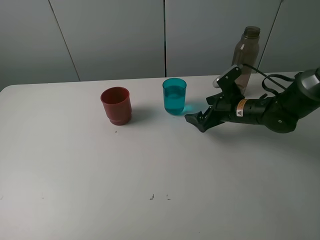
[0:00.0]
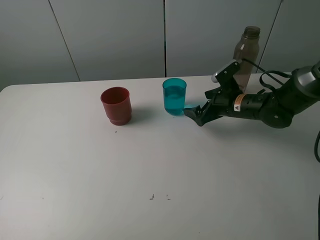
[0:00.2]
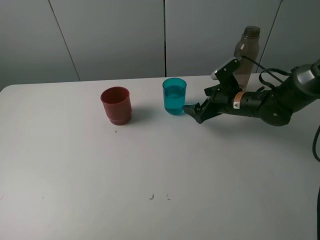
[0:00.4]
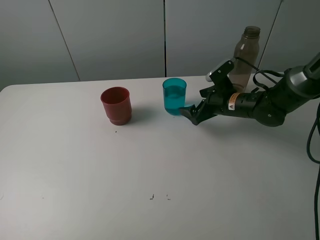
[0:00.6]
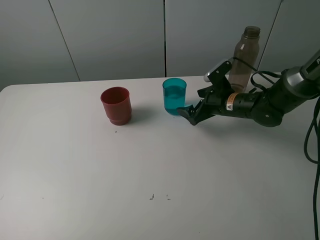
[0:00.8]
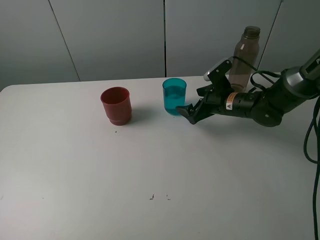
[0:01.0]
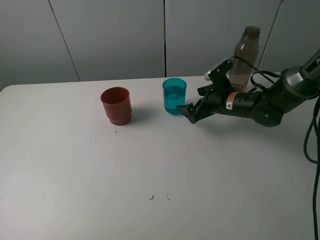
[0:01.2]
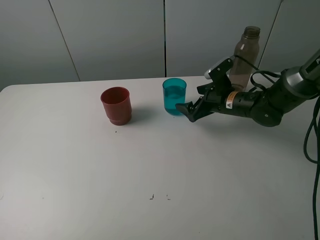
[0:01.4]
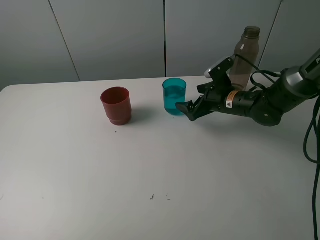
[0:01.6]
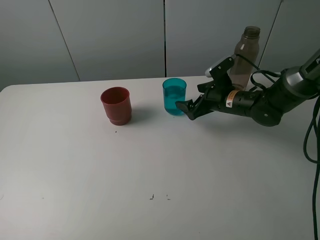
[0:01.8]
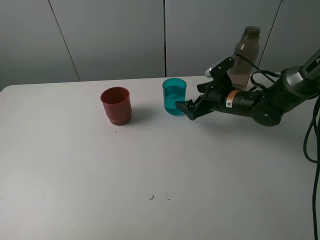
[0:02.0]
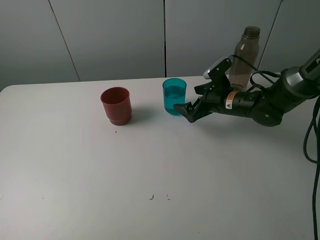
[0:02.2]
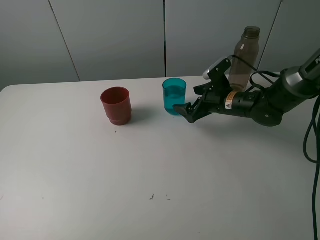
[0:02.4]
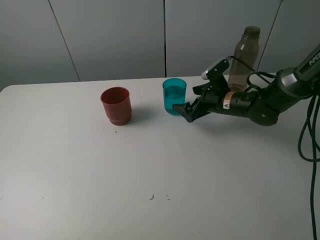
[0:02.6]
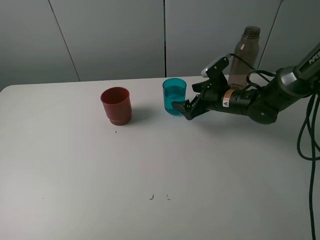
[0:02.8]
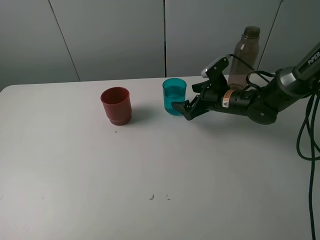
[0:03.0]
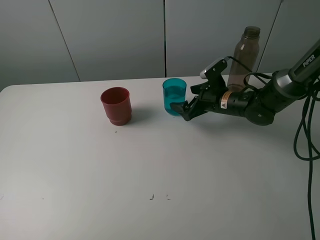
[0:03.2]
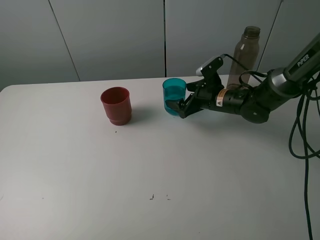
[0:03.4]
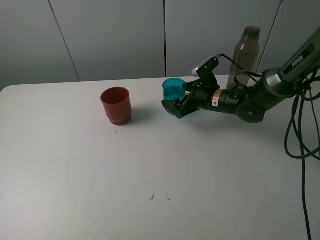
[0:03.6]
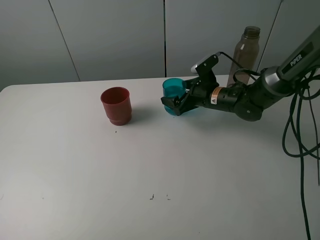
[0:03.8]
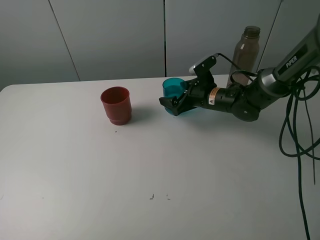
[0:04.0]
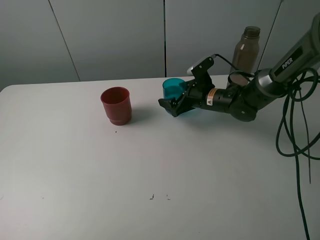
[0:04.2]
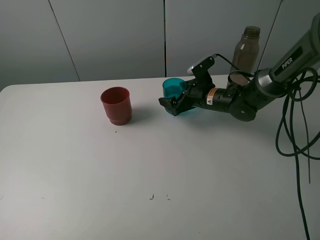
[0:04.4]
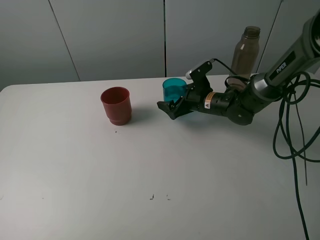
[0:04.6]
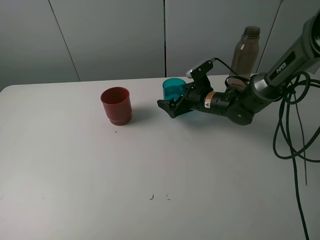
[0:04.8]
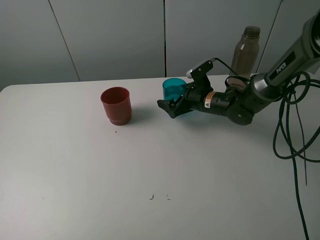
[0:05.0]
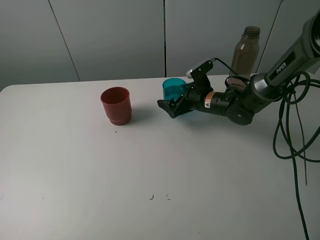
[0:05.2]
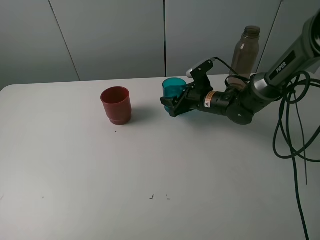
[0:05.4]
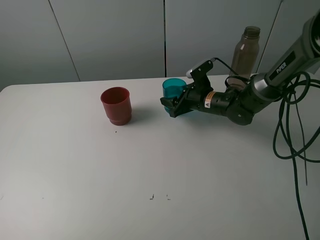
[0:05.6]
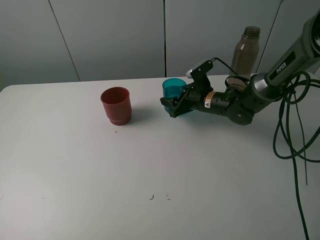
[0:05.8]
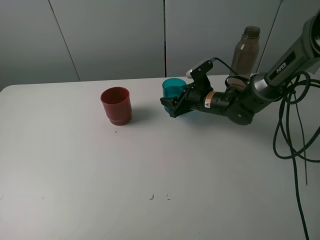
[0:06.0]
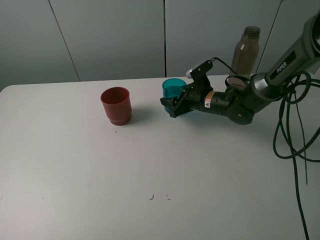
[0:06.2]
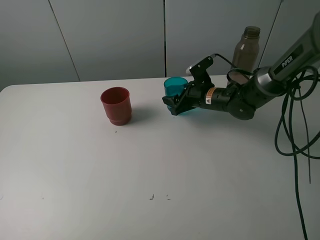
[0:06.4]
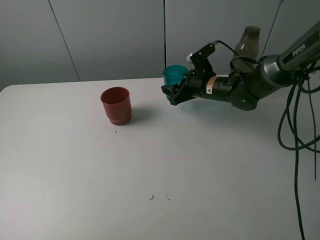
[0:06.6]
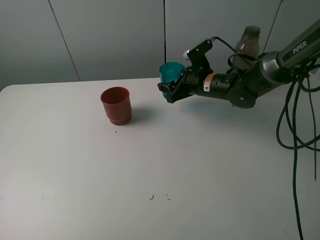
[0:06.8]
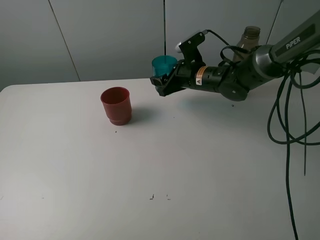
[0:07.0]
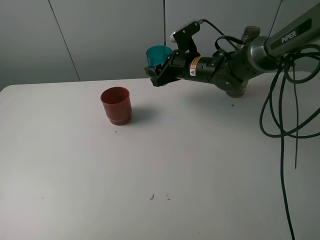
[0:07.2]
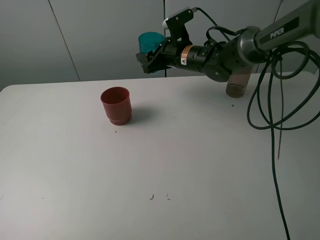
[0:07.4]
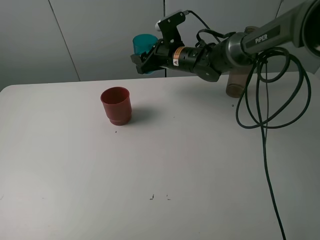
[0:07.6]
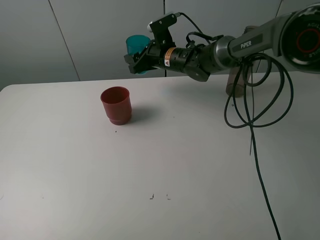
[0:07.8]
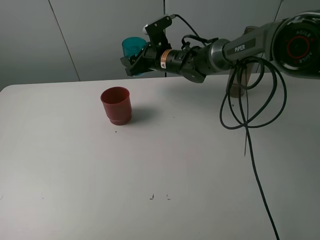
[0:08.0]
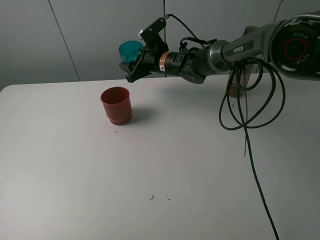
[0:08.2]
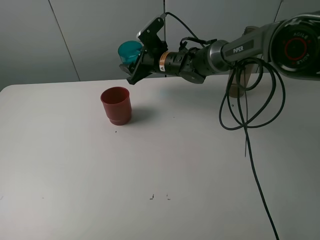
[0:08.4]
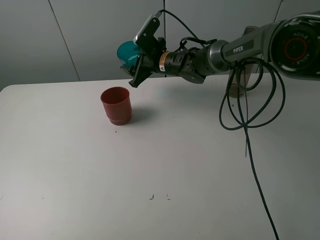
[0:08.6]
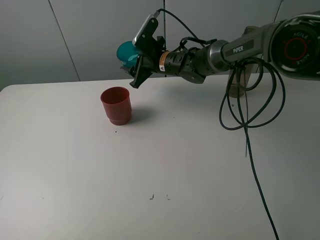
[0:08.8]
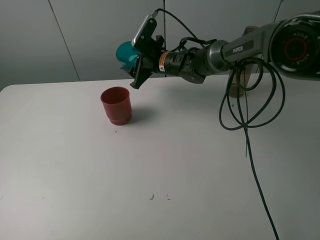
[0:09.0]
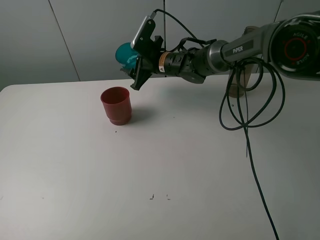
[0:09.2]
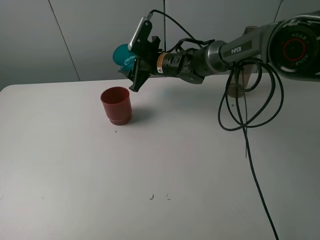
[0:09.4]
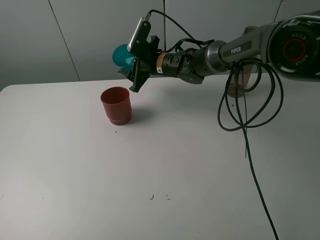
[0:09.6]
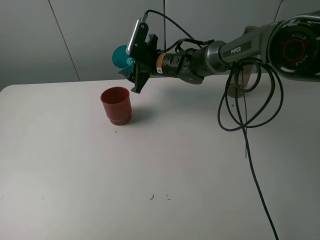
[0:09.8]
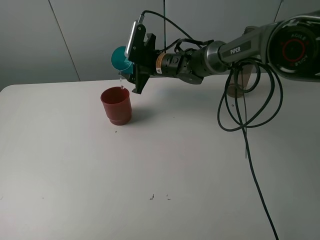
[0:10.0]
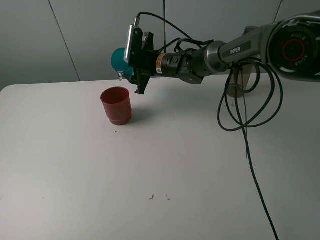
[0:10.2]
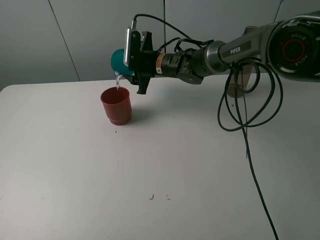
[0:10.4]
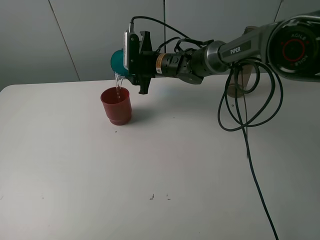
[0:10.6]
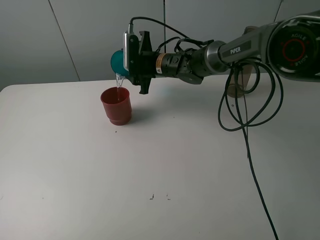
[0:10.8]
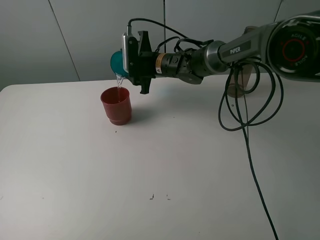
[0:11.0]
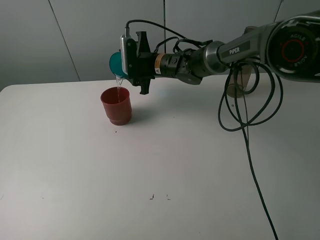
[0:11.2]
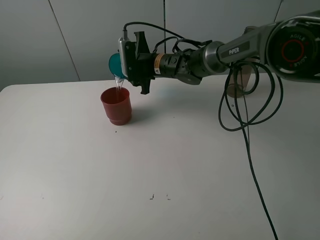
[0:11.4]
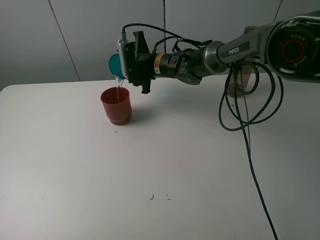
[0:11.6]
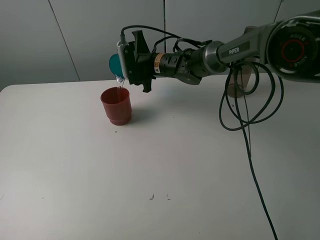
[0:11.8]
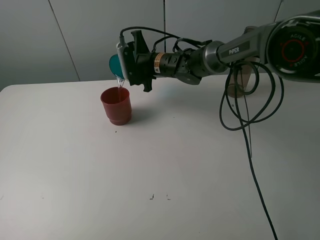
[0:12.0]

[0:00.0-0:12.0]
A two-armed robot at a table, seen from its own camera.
Task of the whole recording: pick up the bottle and pour water into the cup, then pick up the cup containing water and pour it into another cup.
Step, 0:00.0 to 0:05.4: Grasp the blue cup with the right gripper.
0:00.0 to 0:01.6: There are only small adjustments of the grippers.
0:01.6 to 0:03.0: The two grippers keep their place.
0:03.0 to 0:04.4: The grippers stay close to where they were, moving slightly.
0:04.4 to 0:06.0: The right gripper closes up.
0:06.0 to 0:07.6: The right gripper moves upward, to the left and forward, some 15 cm.

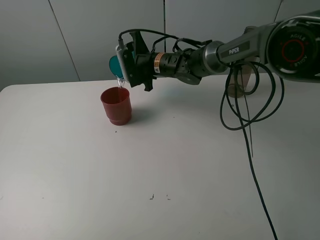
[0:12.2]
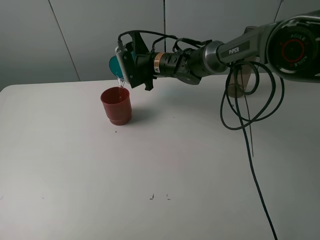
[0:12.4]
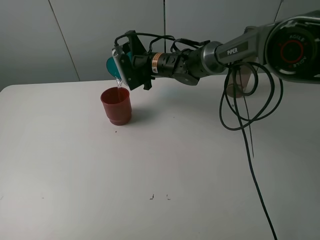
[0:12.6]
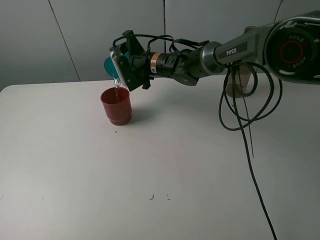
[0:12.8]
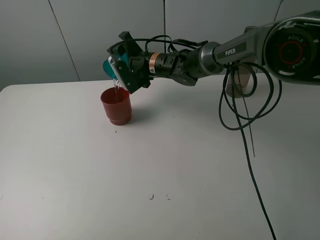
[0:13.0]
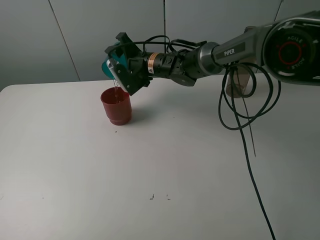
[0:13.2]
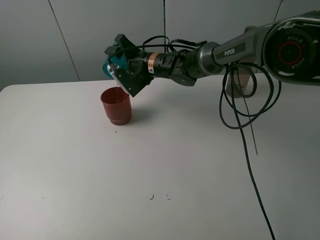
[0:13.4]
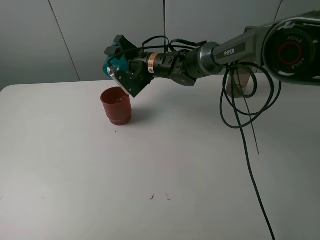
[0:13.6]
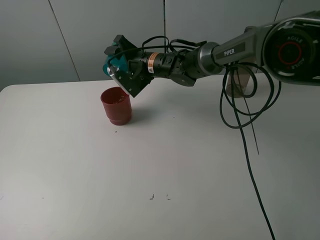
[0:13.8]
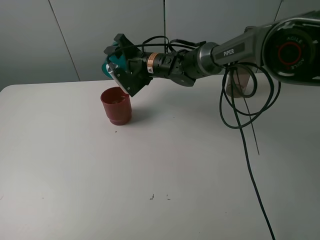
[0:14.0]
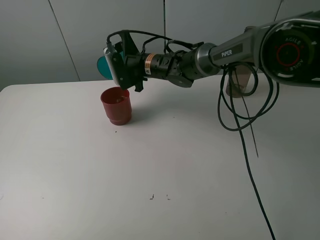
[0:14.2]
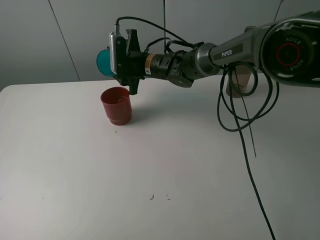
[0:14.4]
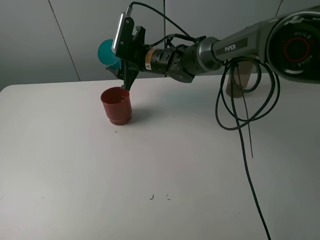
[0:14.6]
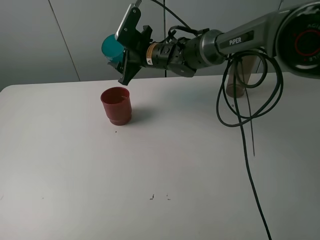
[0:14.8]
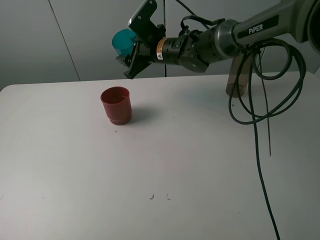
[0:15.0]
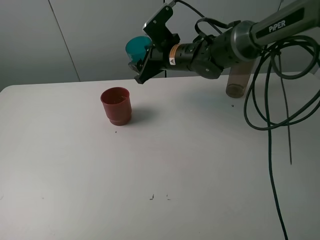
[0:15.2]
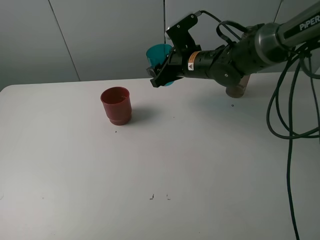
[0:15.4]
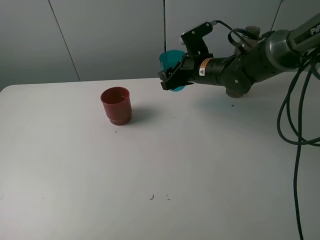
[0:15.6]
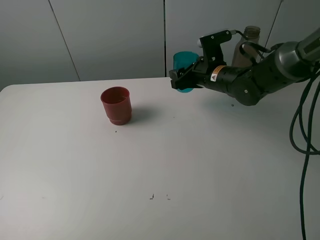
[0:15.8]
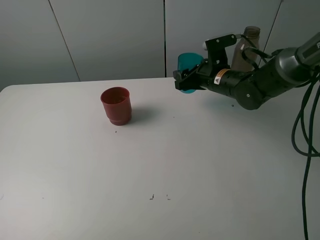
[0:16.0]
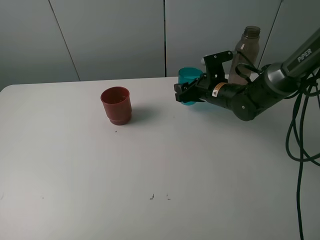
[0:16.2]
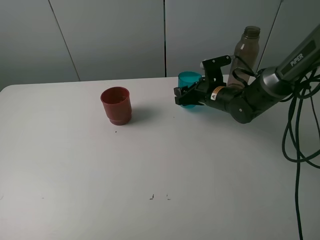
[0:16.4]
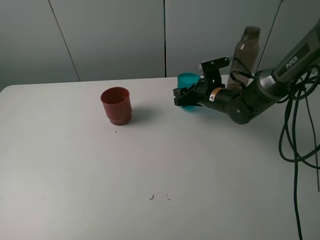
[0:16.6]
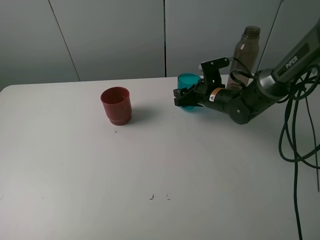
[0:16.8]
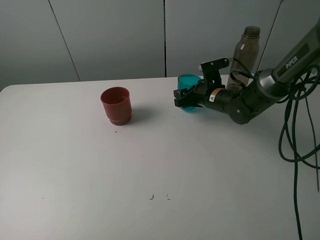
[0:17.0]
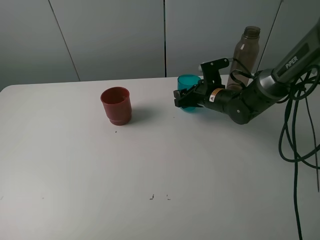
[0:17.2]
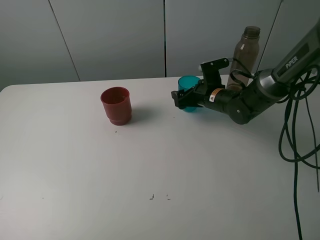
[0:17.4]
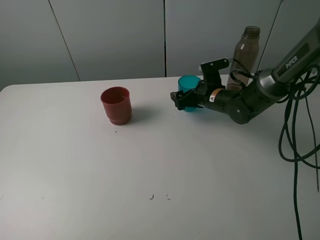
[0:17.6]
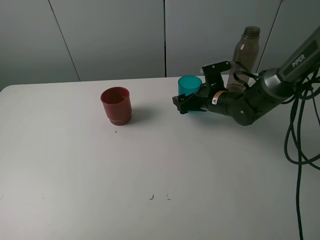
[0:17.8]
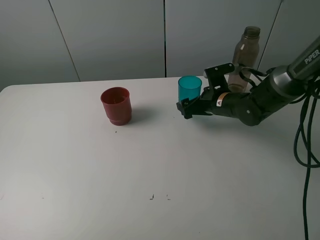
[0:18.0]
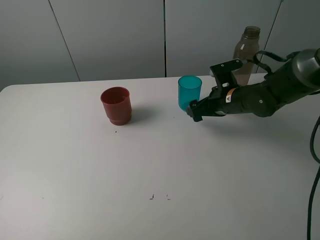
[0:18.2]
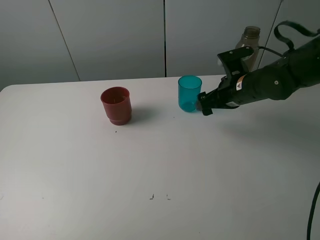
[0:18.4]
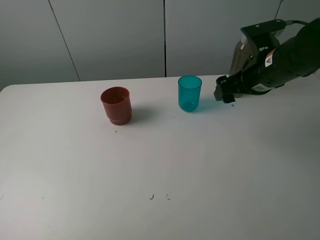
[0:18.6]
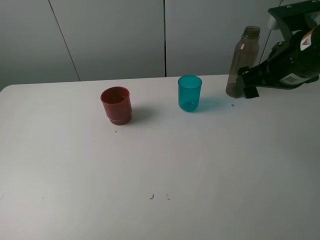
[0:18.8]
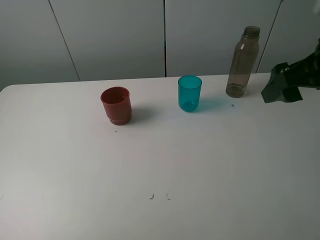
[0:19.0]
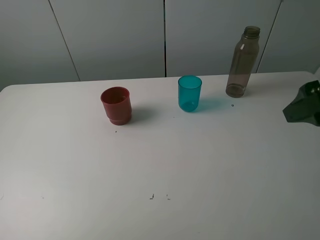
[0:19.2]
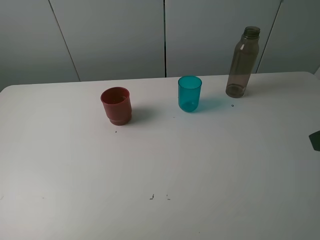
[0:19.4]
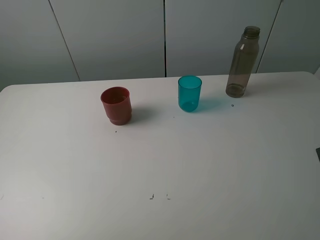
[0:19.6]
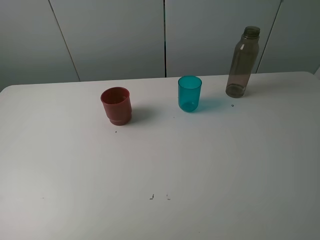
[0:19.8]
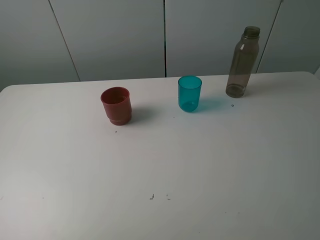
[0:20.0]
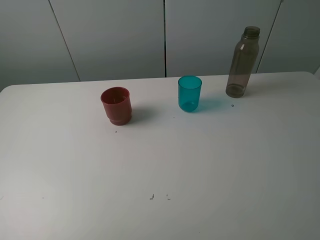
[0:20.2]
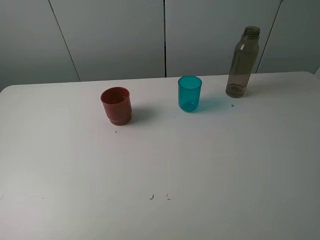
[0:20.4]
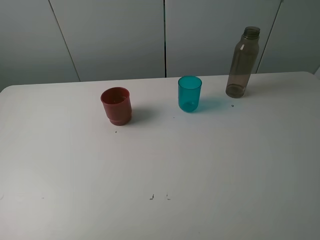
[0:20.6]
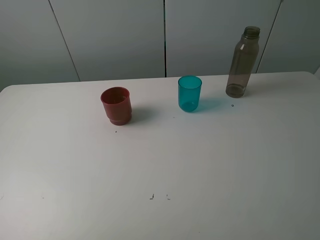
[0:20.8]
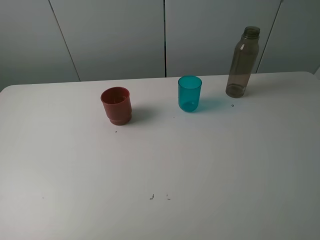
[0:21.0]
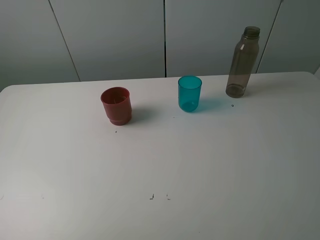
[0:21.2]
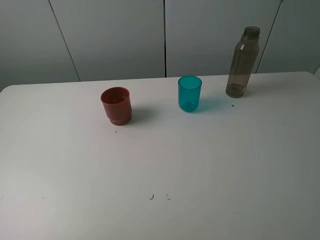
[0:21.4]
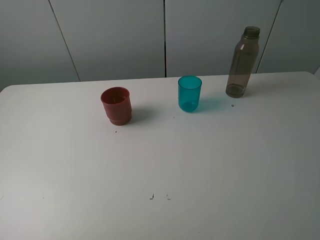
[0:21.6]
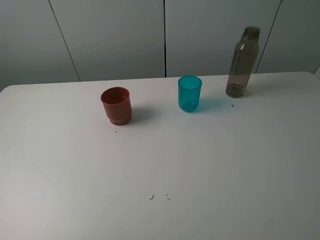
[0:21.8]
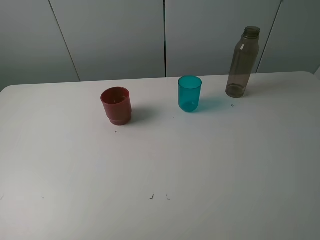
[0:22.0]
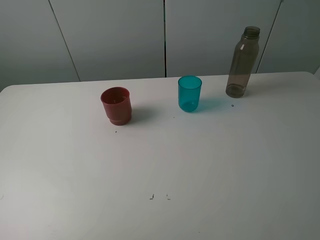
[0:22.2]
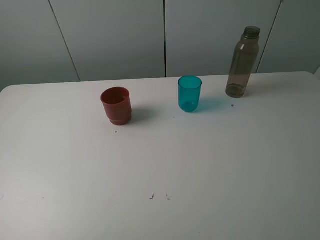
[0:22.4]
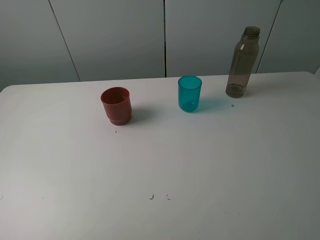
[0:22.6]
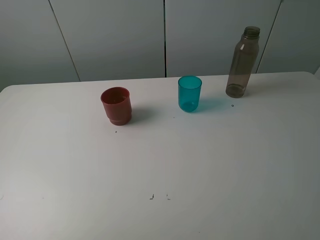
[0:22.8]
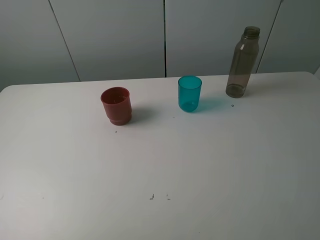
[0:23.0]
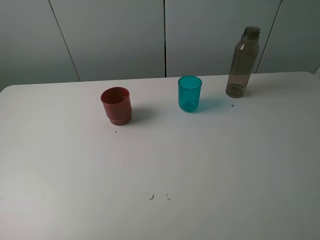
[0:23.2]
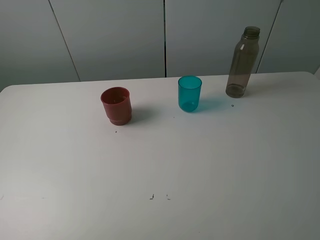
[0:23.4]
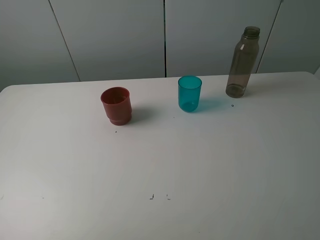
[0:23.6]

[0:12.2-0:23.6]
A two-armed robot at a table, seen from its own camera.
Task of the whole recording: pick up the bottle and pour water into the cup, then pick up the cup containing water and pour it into another cup.
Step, 0:14.0 to 0:17.2: Place the blue cup with the right gripper.
0:15.0 to 0:16.4: The right gripper travels to the right and downward by roughly 15 cm.
0:16.4 to 0:17.8: The right gripper opens.
0:17.8 to 0:19.4: The right gripper goes about 40 cm backward, upward and to the right.
0:22.2 to 0:23.6: Both grippers stay about where they are.
